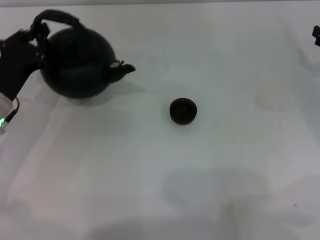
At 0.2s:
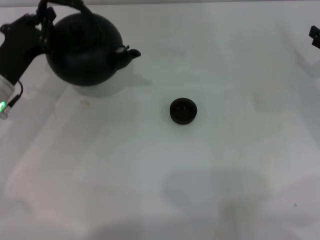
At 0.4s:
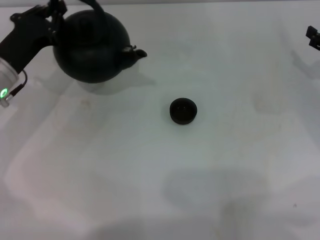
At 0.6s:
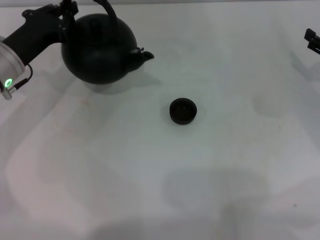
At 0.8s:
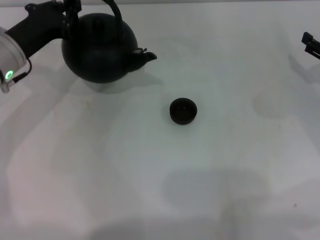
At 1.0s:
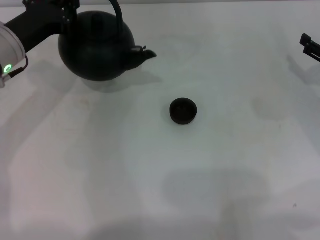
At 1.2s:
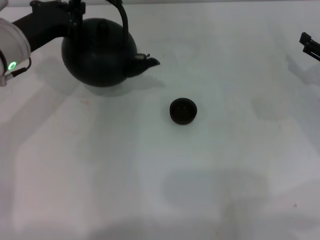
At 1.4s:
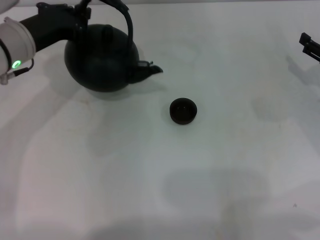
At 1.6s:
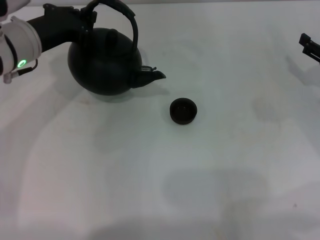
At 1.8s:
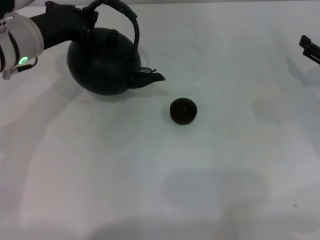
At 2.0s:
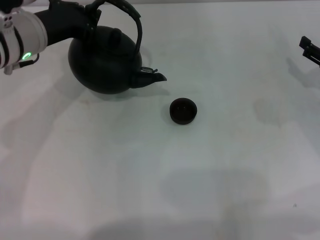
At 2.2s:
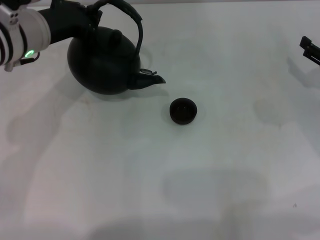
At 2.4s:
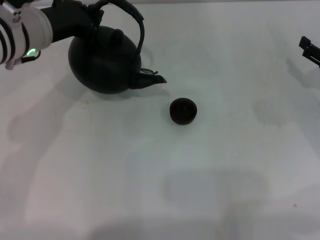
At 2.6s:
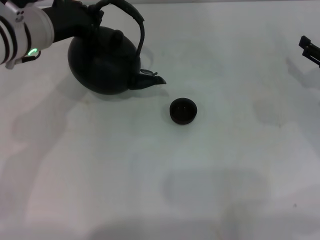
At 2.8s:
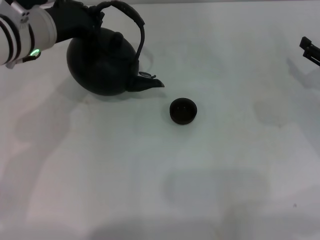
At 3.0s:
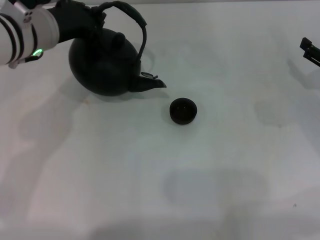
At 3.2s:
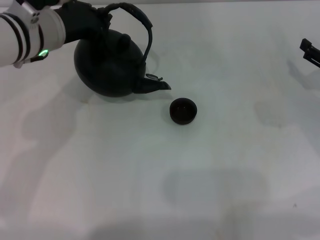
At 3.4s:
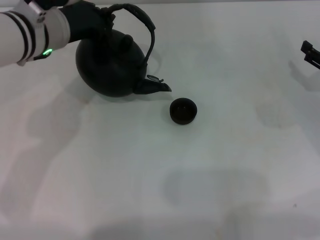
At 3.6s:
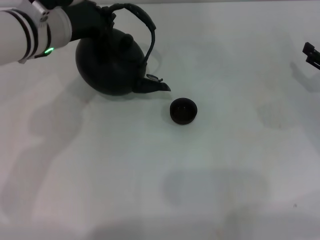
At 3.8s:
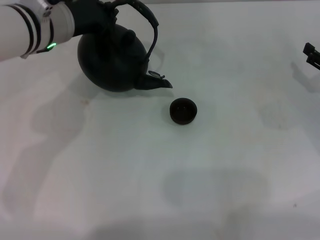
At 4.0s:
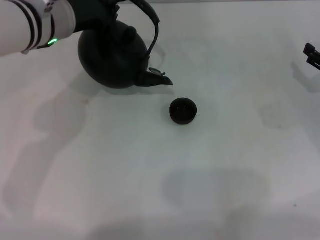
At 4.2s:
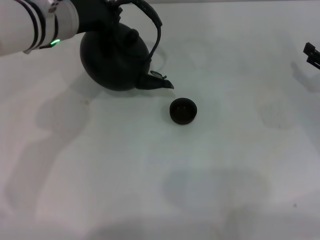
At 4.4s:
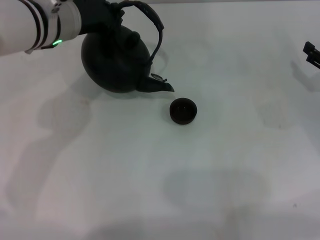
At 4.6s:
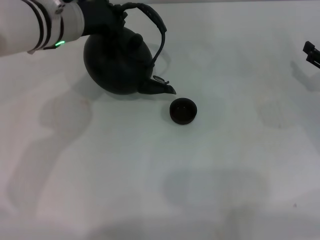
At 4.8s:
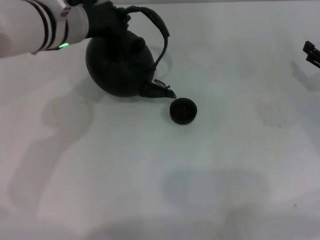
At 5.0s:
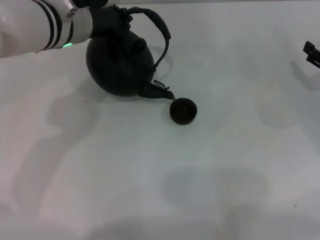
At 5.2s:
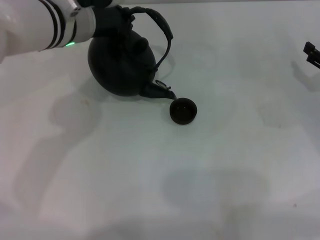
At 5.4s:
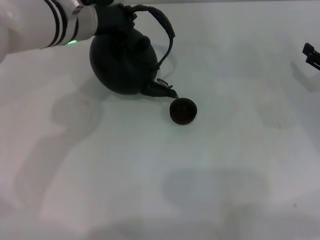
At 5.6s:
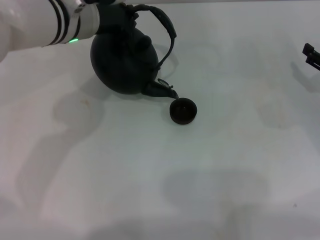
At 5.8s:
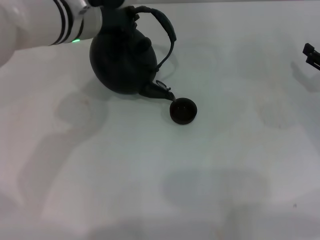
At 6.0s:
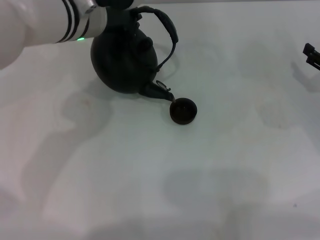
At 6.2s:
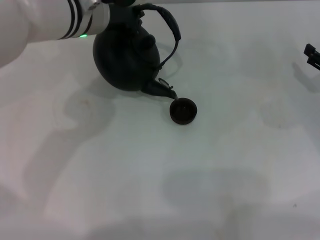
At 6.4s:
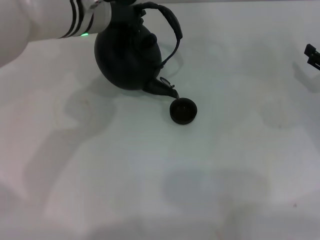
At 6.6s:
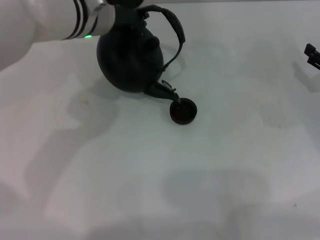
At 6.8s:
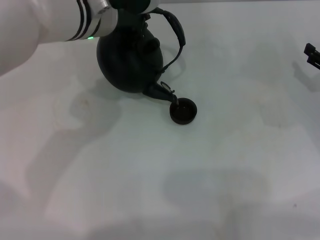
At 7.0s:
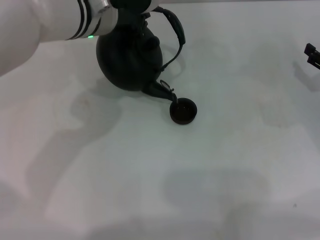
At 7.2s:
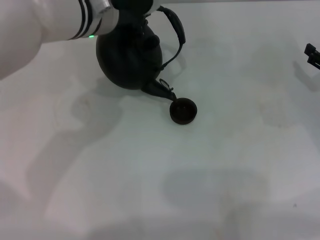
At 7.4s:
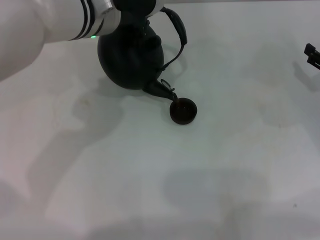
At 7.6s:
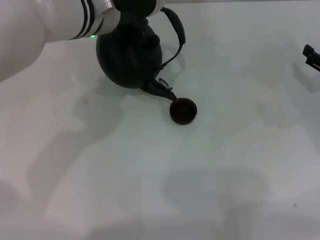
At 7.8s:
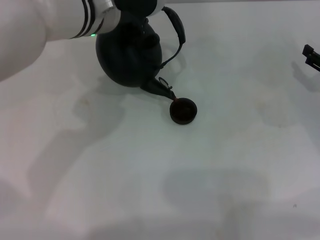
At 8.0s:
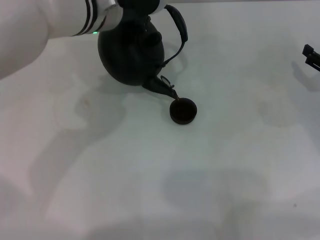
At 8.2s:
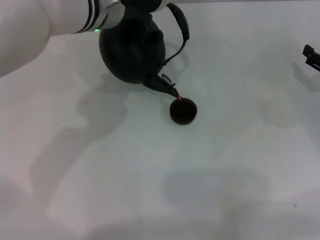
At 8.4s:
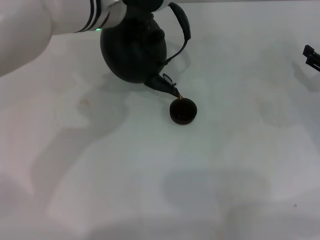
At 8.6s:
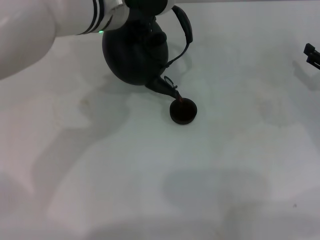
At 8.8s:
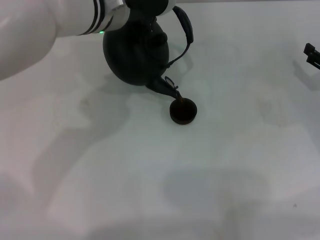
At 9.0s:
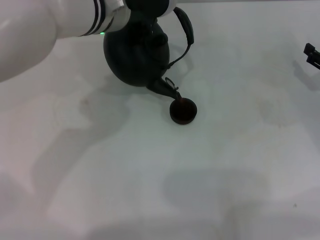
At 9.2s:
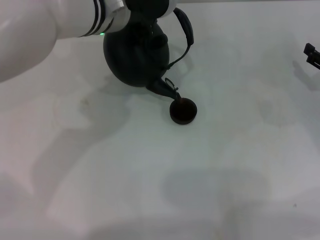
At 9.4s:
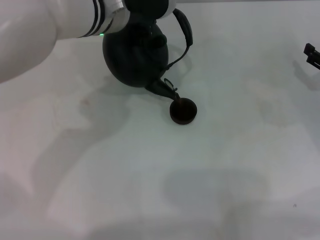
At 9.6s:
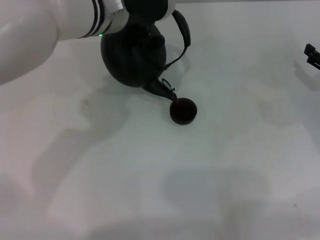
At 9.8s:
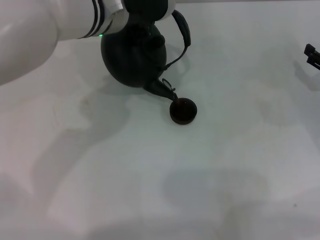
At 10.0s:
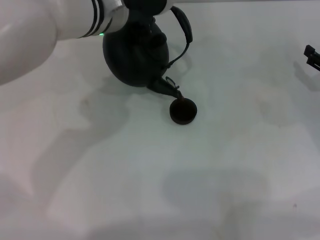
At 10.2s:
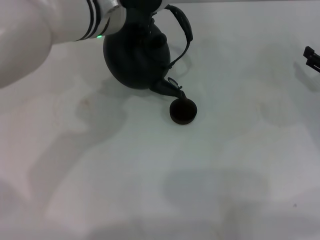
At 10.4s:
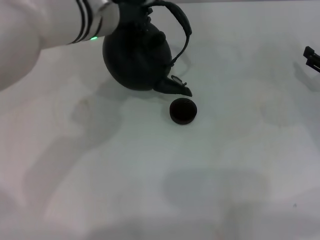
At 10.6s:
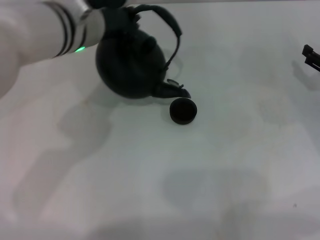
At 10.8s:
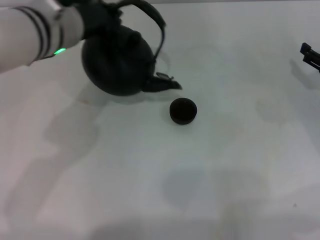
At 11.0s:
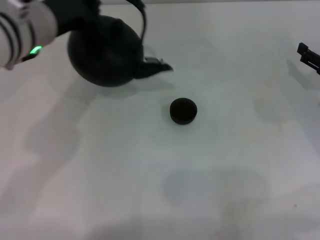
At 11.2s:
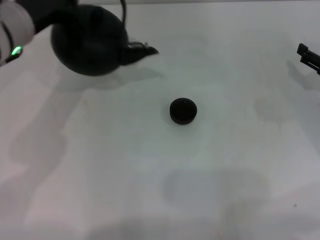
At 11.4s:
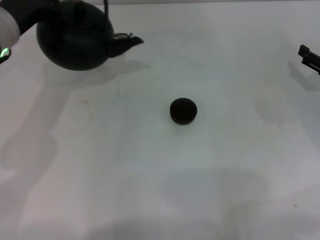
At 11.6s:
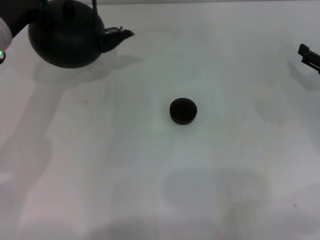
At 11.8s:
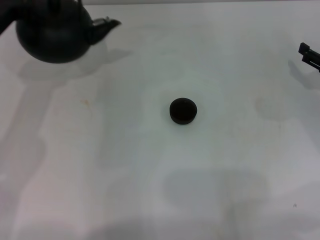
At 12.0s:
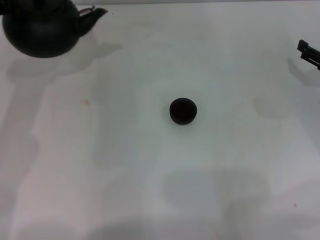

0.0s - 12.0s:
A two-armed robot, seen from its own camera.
Task of the whole recording: Grasp the handle of the teapot with one hand and pour tea into the teacup.
Step, 0.0s - 10.8s: Pour tea into the teacup with the left gripper.
0.0s - 1.6s: The left gripper shifts some 10 cm upward and forward.
1.6s - 3.0s: The grippers stay close to where they were, moving slightly.
3.0s - 4.4s: The grippers make only small movements.
4.4s - 6.0s: There are only small adjustments of the grippers.
6.0s - 7.6s: The grippers stay close to where they were, moving slightly.
7.6s - 9.0s: The two grippers keep their place.
9.0s - 10.4s: The grippers make only small movements.
10.4s - 12.0s: The left gripper is displaced to the left by roughly 15 cm.

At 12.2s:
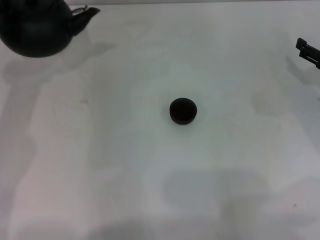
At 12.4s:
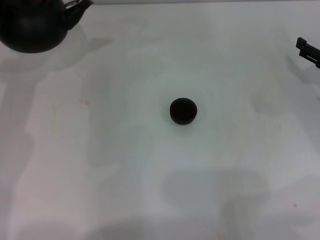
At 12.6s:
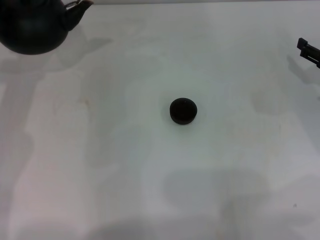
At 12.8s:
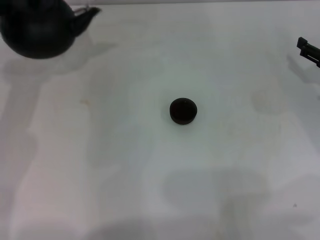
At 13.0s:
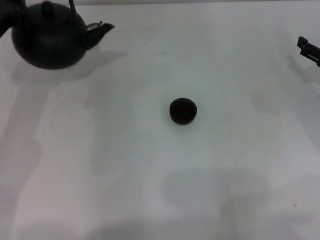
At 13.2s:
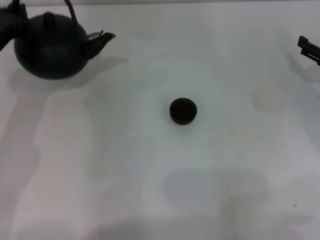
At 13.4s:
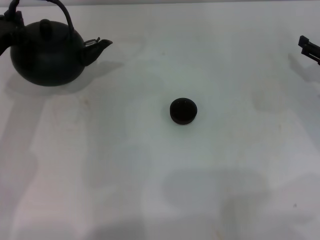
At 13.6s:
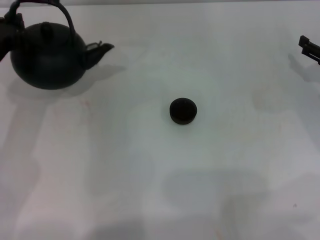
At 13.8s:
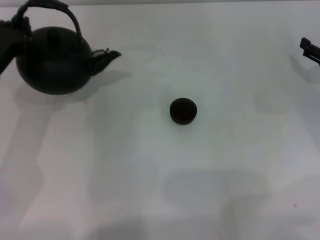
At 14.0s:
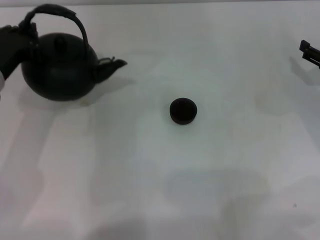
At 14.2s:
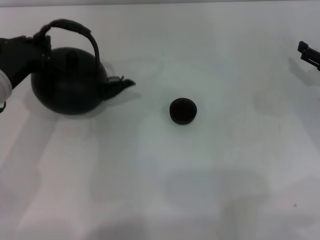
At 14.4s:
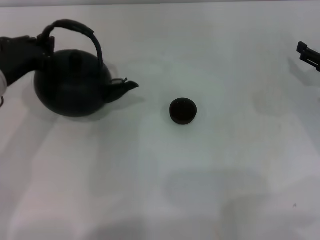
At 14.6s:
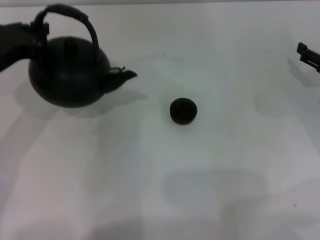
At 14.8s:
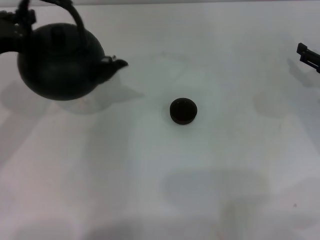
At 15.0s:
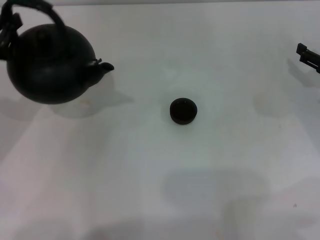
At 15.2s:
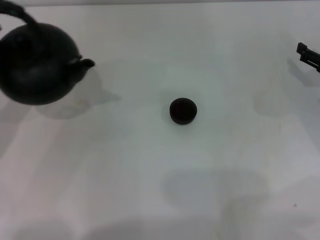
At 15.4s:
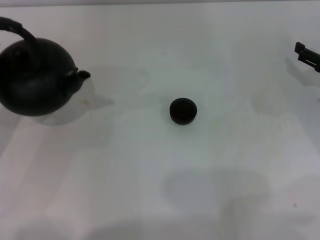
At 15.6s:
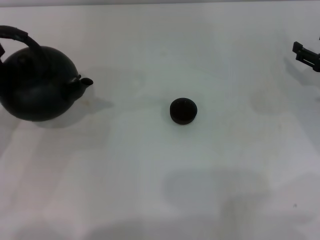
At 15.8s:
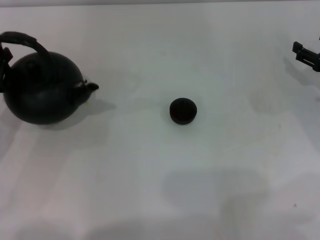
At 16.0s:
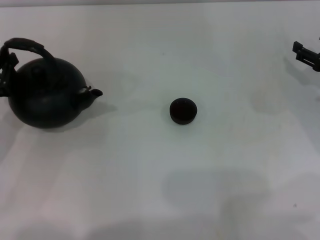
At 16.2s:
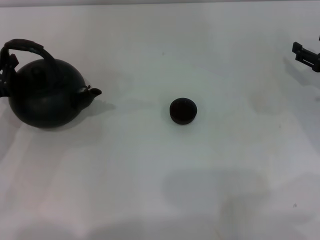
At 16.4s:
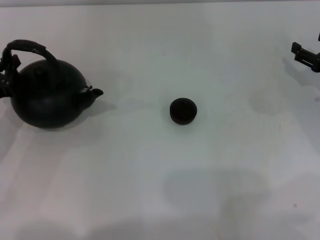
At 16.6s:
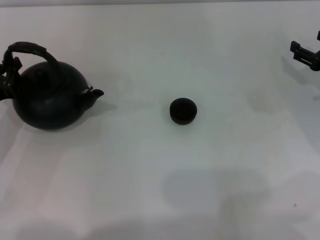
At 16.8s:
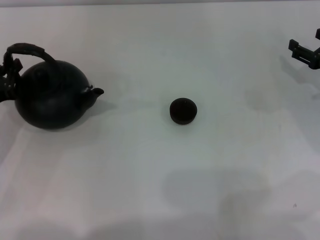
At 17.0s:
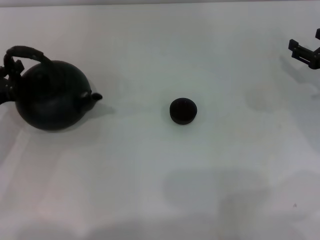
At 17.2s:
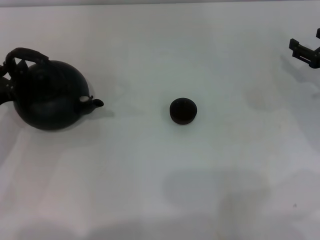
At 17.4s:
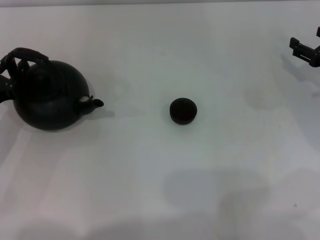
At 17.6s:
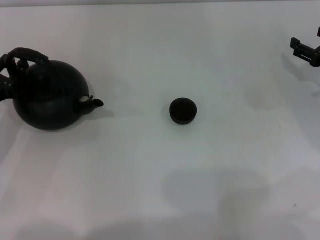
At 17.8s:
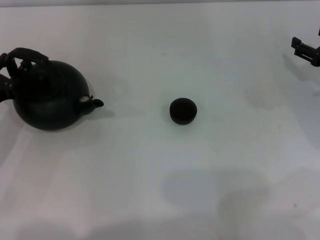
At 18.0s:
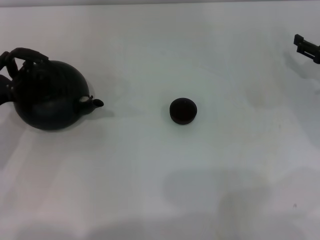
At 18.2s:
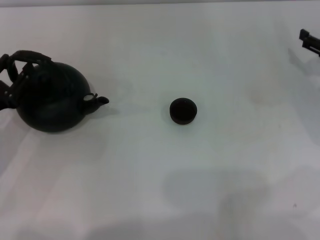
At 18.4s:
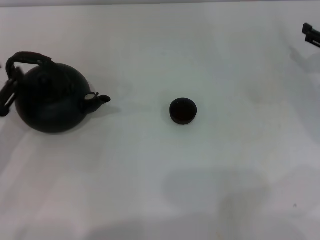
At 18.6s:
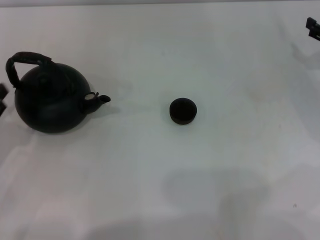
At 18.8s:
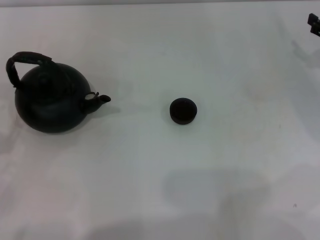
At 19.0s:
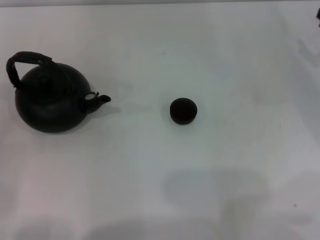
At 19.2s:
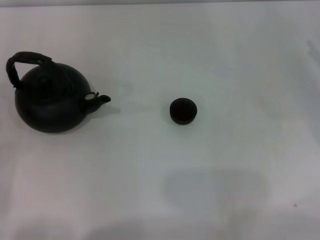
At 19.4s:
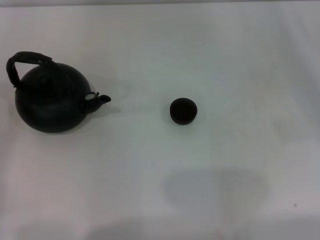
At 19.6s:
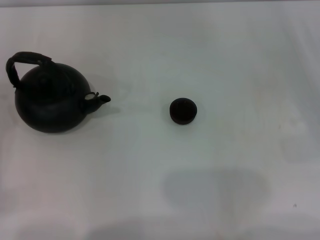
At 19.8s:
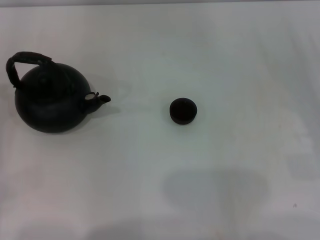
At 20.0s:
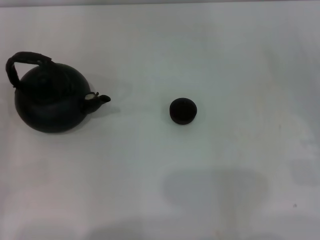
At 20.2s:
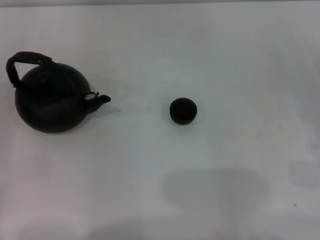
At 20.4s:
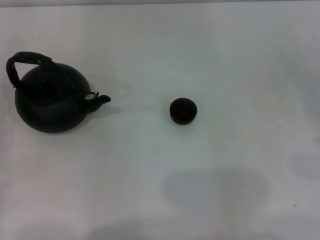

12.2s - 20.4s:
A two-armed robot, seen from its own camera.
Task of the whole recording: Grasp the handle of the teapot with one hand and pour tea into the teacup.
Step, 12.2s - 18.6s: Put down the teapot with the left gripper.
12.2s - 13.8s: The left gripper shifts by some 5 cm.
13.8s - 15.4s: The left gripper is displaced to the left and backward by some 10 cm.
15.4s - 17.2s: The left gripper moves approximately 5 cm.
17.2s - 18.8s: The left gripper heads backward, covering approximately 10 cm, and opens up.
